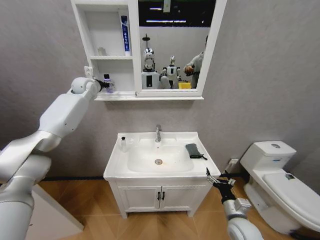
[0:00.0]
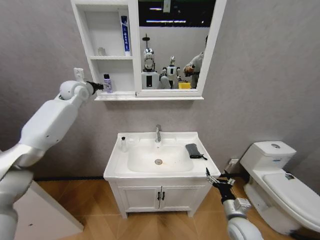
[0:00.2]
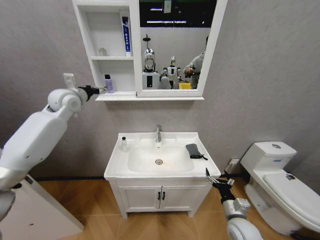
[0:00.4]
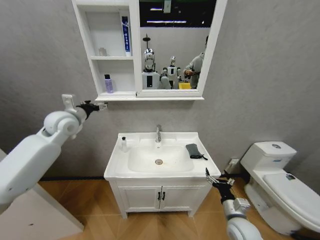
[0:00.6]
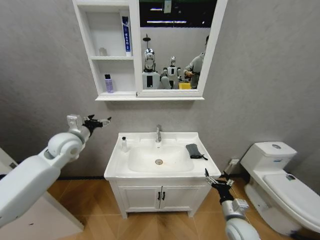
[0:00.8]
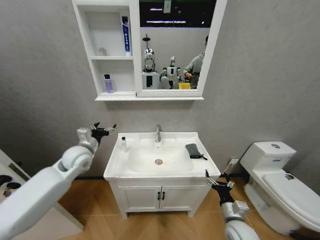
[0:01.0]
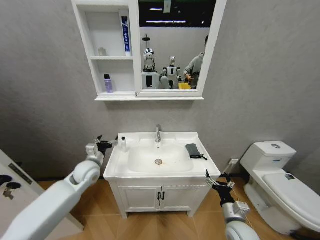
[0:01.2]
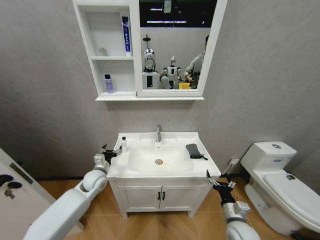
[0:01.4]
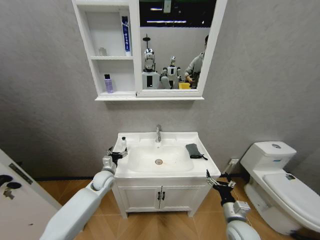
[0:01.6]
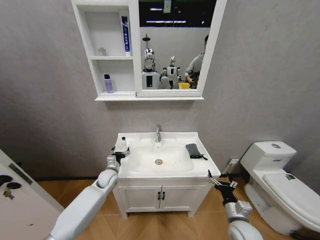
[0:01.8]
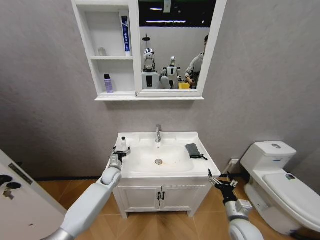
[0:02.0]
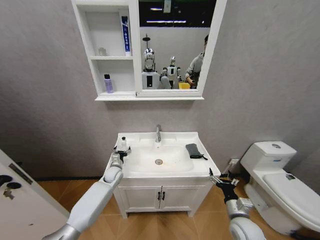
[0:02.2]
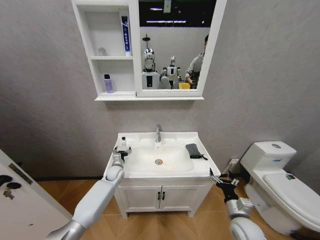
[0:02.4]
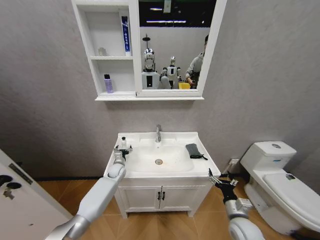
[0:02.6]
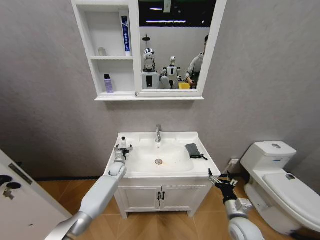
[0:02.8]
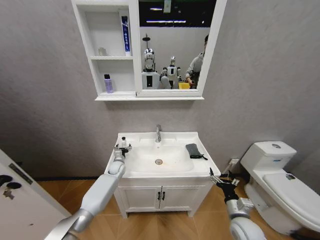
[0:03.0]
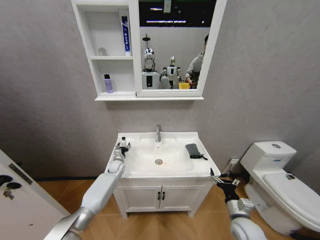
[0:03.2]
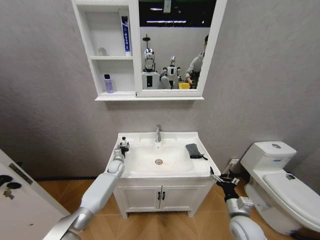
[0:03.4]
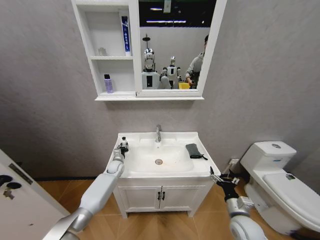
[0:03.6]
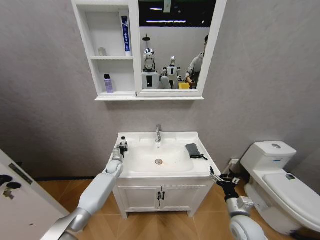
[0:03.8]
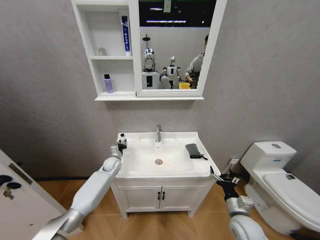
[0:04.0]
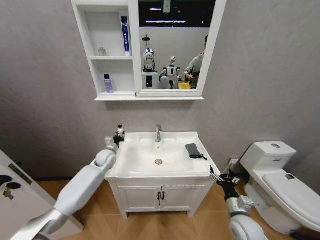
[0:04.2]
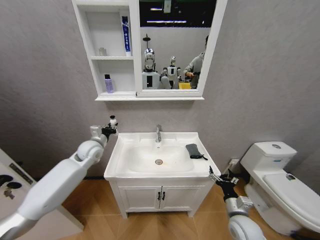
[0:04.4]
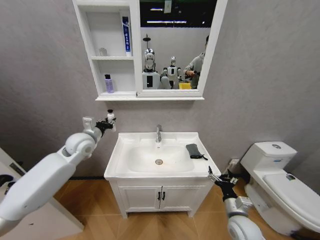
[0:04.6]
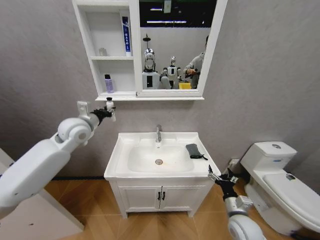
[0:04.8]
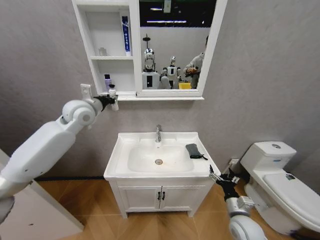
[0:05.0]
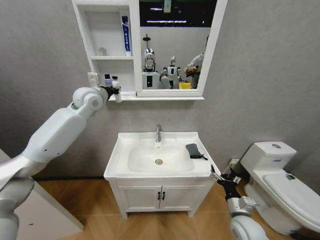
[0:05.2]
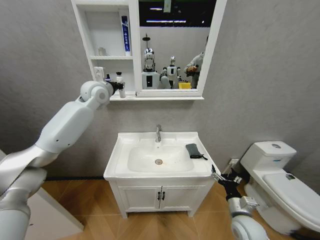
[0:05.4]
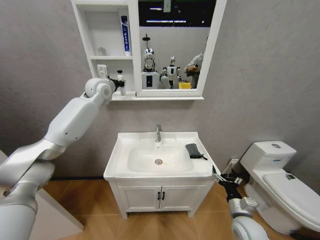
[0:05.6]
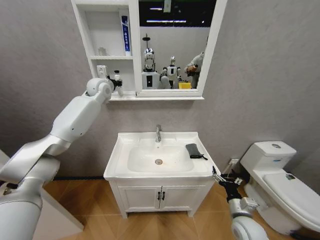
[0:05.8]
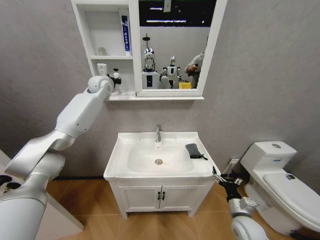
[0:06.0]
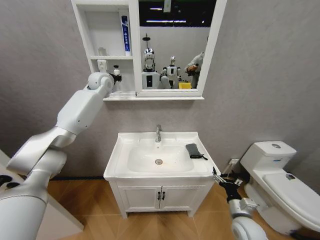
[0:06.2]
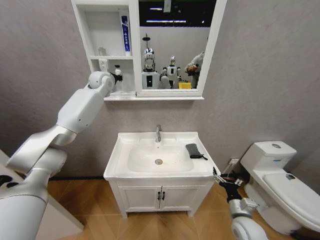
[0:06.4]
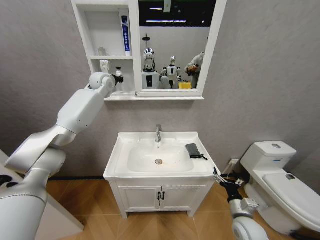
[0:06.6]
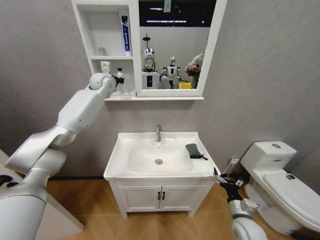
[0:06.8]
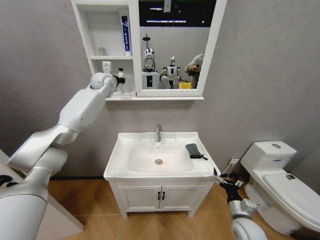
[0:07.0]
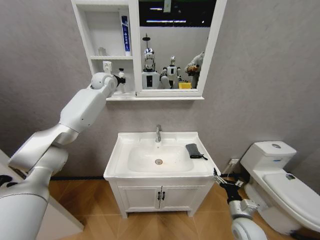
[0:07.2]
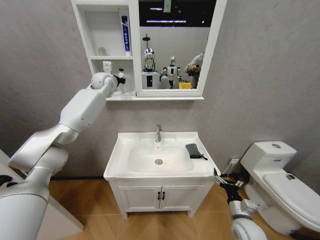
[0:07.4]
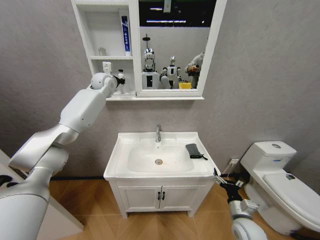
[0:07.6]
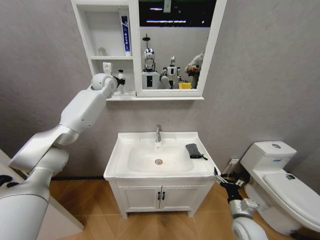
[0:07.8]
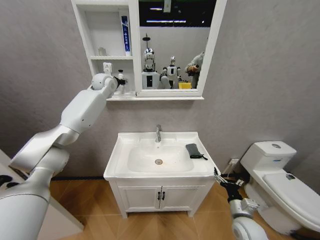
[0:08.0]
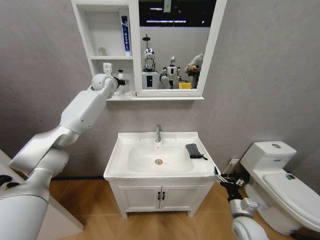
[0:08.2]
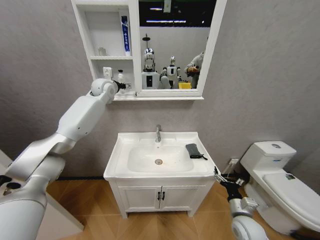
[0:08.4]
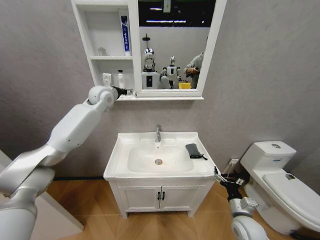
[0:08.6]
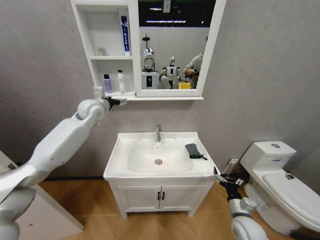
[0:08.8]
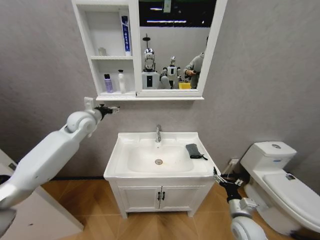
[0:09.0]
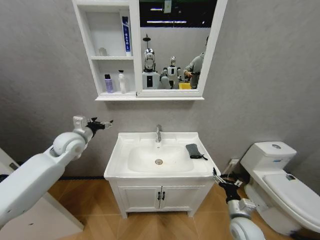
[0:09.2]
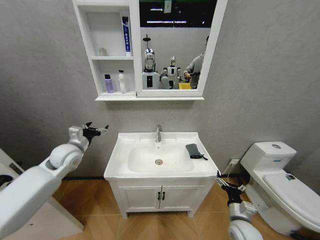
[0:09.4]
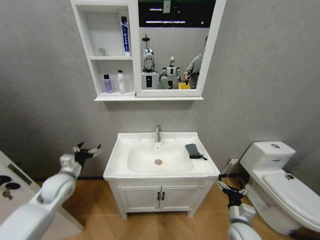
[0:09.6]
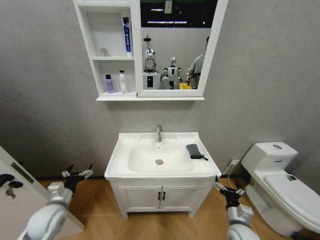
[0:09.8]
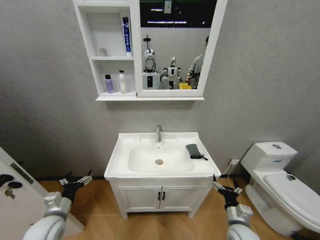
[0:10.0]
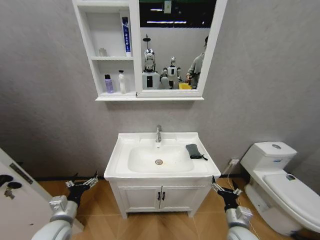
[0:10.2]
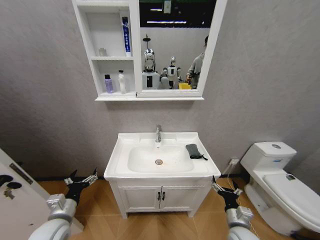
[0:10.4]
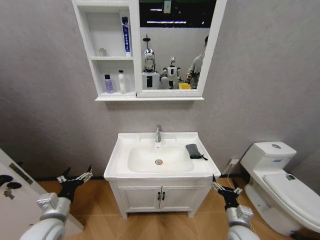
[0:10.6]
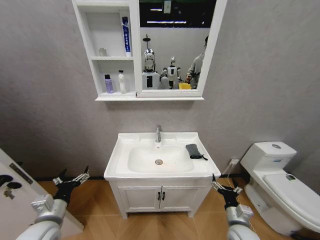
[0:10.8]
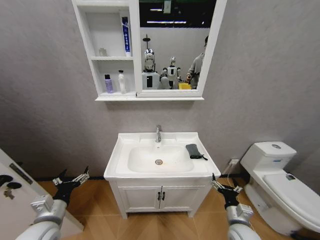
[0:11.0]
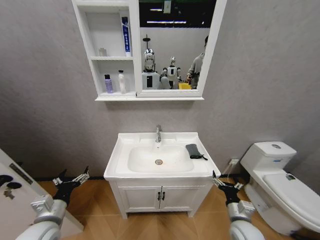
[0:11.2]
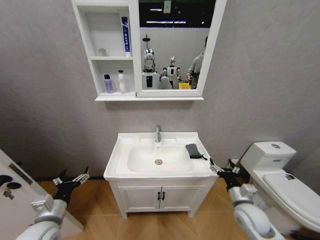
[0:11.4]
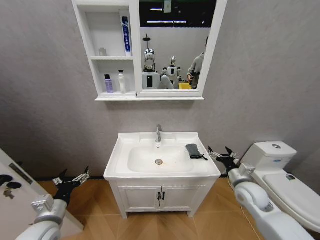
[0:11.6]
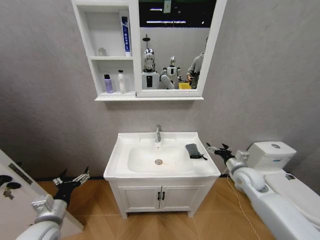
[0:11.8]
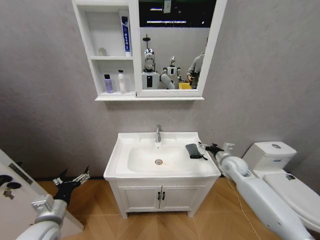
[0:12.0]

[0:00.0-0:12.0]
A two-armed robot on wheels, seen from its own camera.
Task of the whole recording: Move facial cleanser and shampoo from washbasin to cabinet, then wipe washbasin with towel.
0:00.0 to 0:01.6: The left gripper heads downward and backward, covering some 40 cm.
0:01.6 to 0:03.0: The left gripper heads forward and downward, covering roughly 10 cm.
0:03.0 to 0:04.4: The left gripper moves upward, some 20 cm, and closes its fingers.
0:04.4 to 0:06.0: The left gripper travels upward and forward by approximately 30 cm.
0:06.0 to 0:07.6: The grippers stay close to where they were, moving slightly.
0:07.6 to 0:09.0: The left gripper shifts some 20 cm backward, downward and to the left, and opens up.
0:09.0 to 0:10.4: The left gripper is displaced backward and downward by approximately 35 cm.
0:10.4 to 0:12.0: The right gripper heads forward and upward, covering about 25 cm.

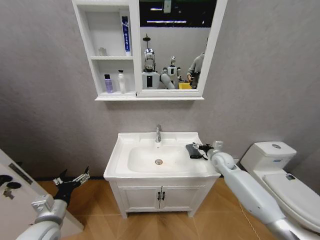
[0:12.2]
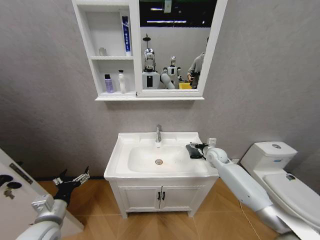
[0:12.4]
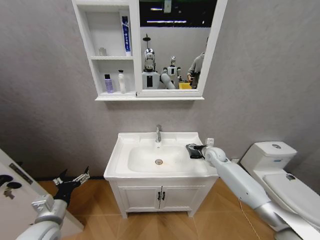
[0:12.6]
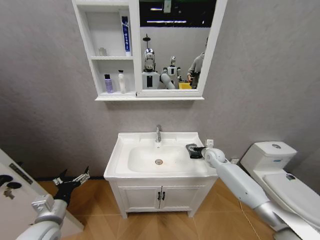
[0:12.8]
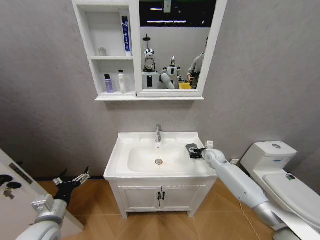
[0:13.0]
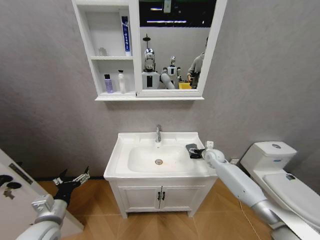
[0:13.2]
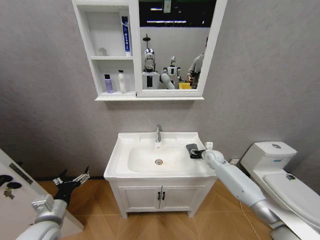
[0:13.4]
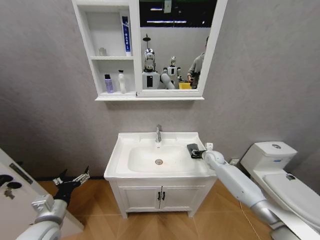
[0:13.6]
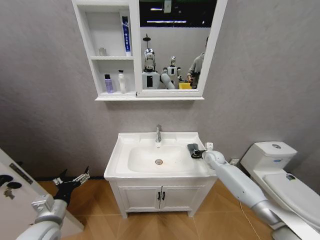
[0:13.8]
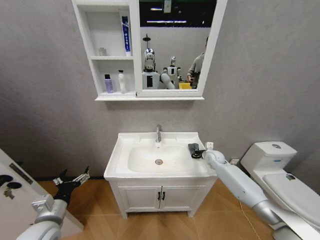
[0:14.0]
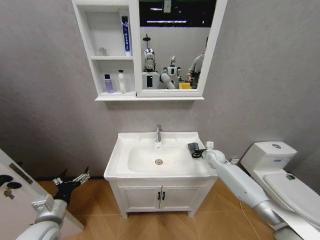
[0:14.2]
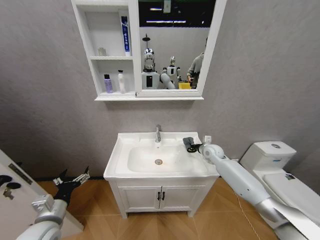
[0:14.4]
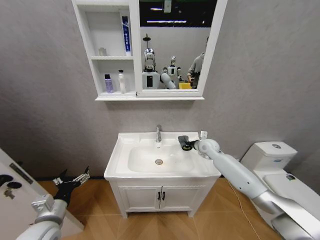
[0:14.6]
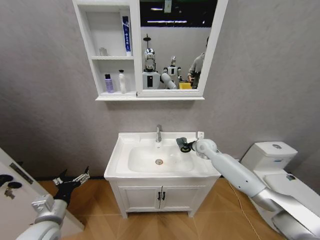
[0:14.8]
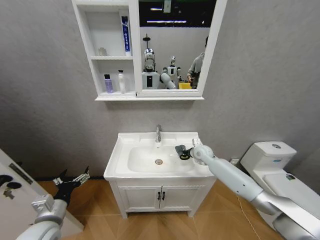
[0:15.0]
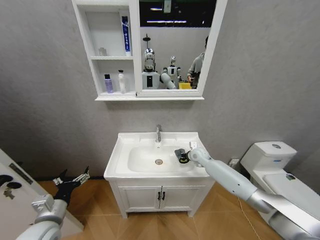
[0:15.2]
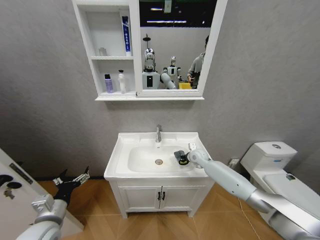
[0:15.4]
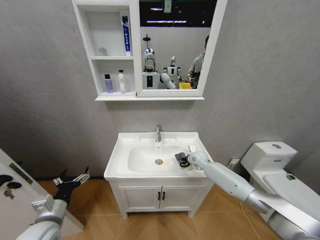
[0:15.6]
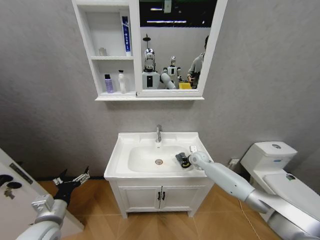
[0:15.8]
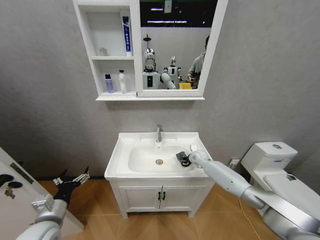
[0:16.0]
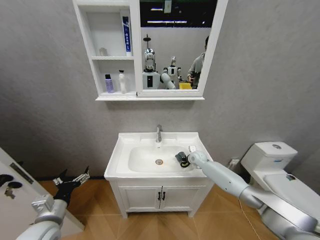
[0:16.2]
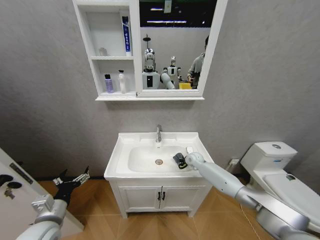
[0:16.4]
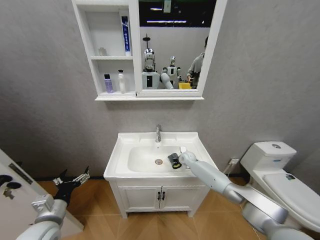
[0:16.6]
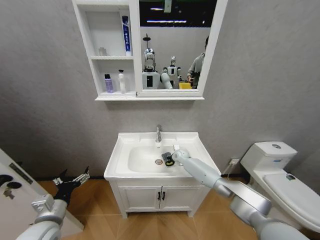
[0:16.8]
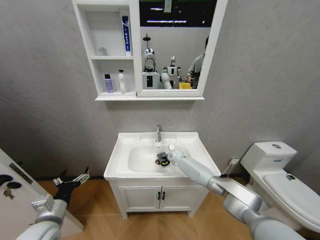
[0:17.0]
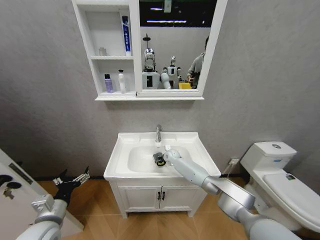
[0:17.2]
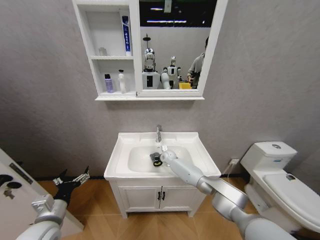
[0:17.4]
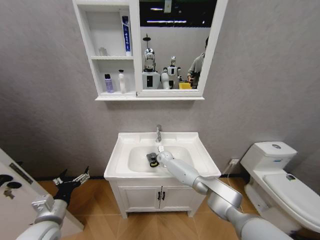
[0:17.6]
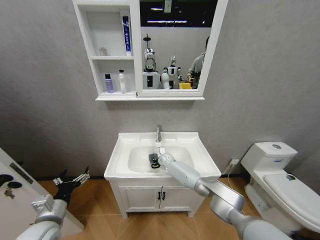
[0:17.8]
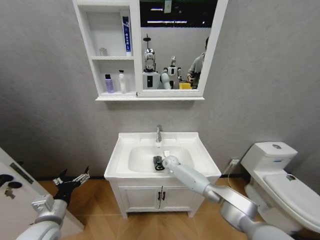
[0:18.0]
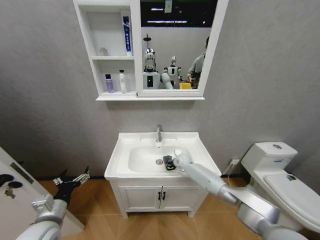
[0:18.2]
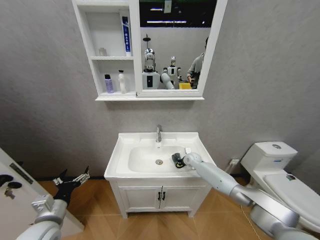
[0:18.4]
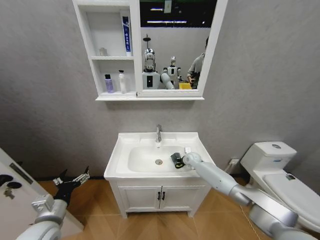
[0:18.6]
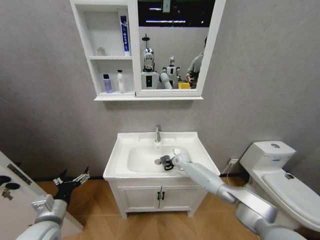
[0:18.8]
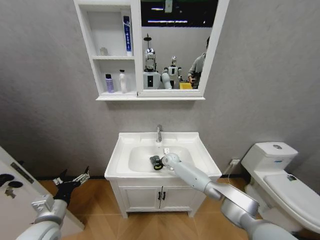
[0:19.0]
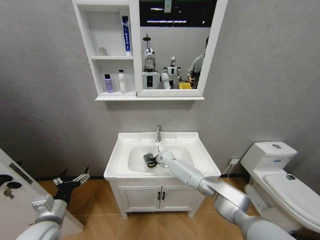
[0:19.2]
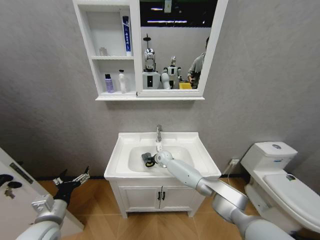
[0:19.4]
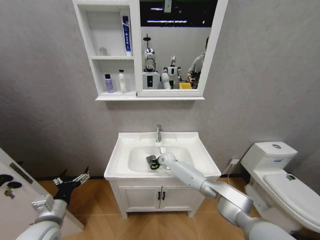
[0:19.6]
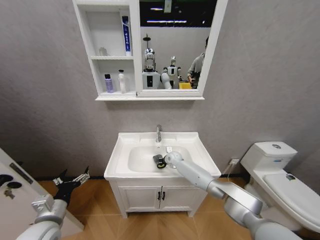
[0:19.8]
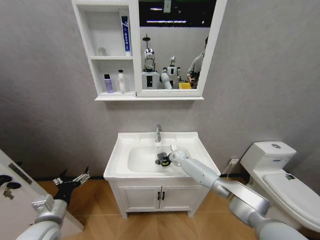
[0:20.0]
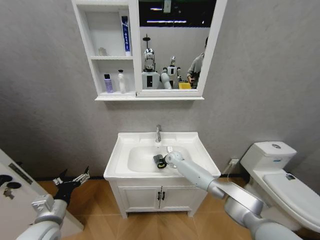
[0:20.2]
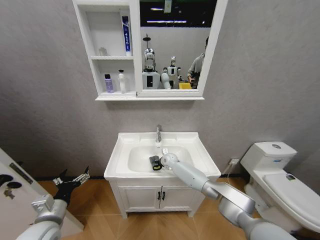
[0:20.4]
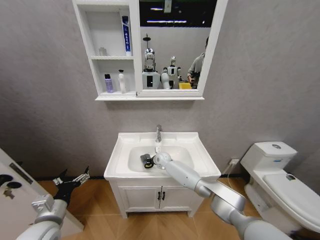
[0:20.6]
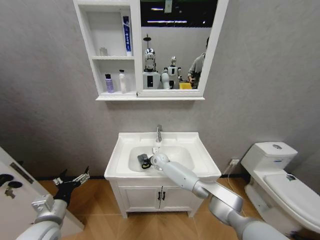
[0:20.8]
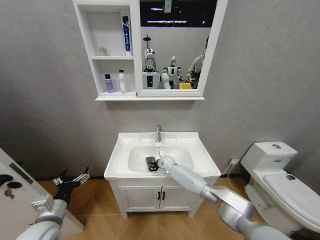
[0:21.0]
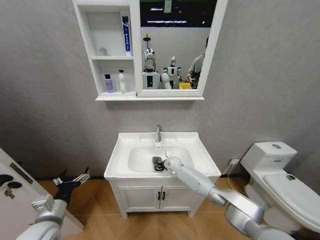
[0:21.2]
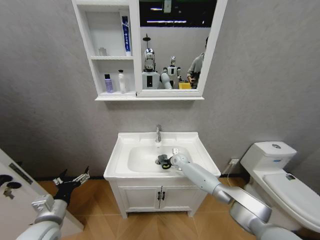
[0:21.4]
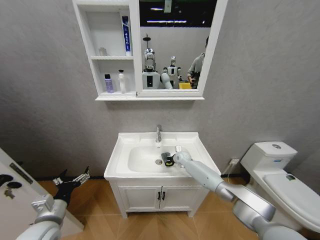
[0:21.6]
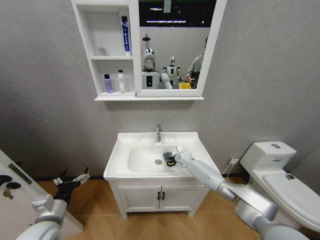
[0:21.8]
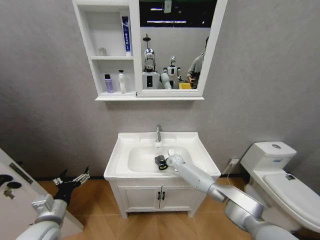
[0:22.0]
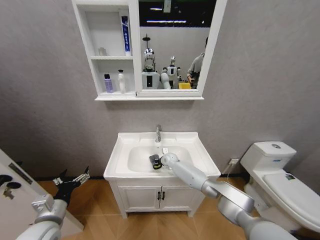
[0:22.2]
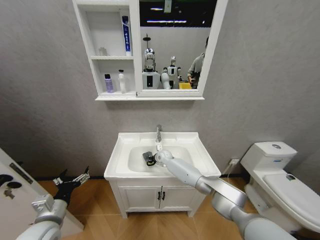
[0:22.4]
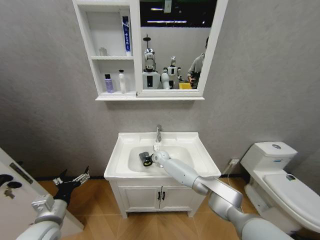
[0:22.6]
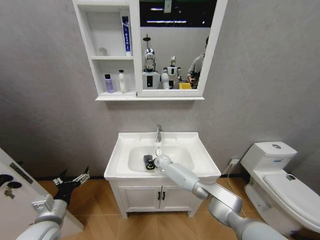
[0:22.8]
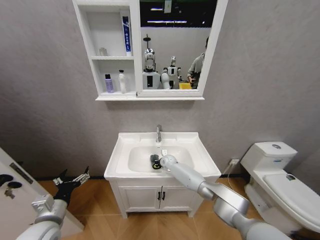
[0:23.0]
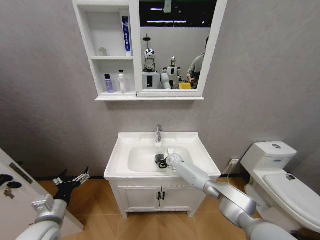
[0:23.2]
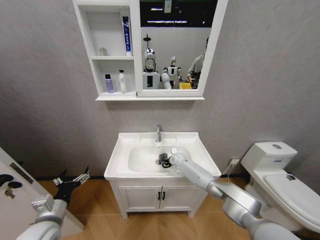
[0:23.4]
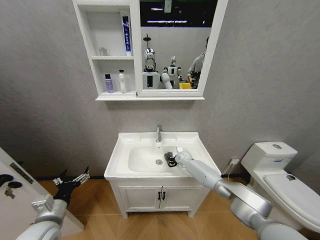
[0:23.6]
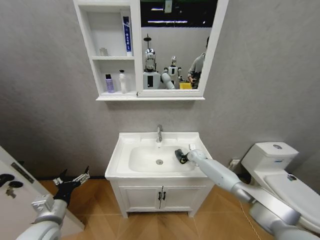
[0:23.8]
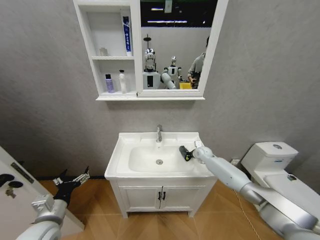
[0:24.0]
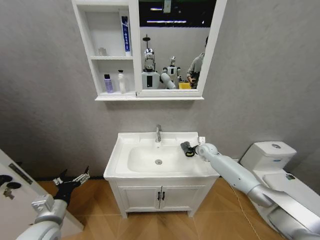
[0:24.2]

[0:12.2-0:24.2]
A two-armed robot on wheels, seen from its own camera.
Task of the whole recording: Move facial cleanser and shampoo from washbasin to cabinet, then wipe washbasin with towel.
0:12.2 to 0:13.8: The right gripper ends up about 5 cm from where it was, and closes up.
0:13.8 to 0:15.2: The right gripper moves to the left, some 10 cm.
0:15.2 to 0:16.6: The right gripper heads downward, covering some 5 cm.
0:16.6 to 0:18.2: The right gripper travels to the left and back again, roughly 15 cm each way.
0:18.2 to 0:19.8: The right gripper swings left and right, some 20 cm each way, with 2 reversals.
0:19.8 to 0:21.2: The right gripper moves about 10 cm to the left and comes back.
0:21.2 to 0:22.6: The right gripper travels to the left by some 10 cm.
0:22.6 to 0:24.2: The right gripper travels to the right by about 25 cm.
